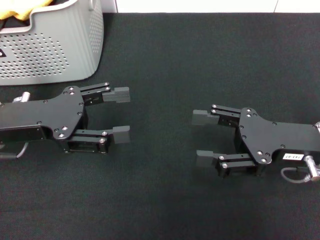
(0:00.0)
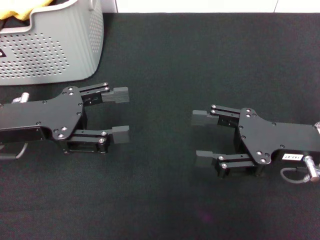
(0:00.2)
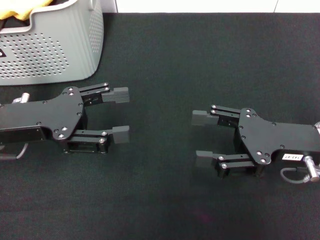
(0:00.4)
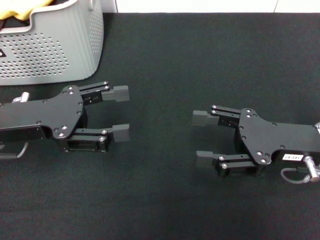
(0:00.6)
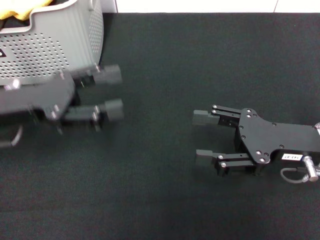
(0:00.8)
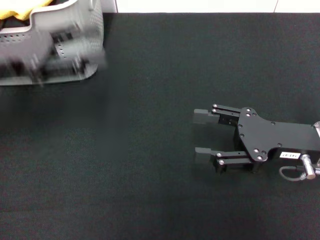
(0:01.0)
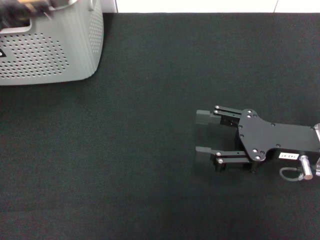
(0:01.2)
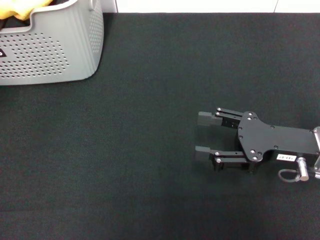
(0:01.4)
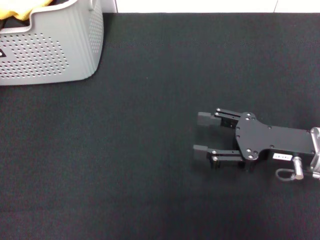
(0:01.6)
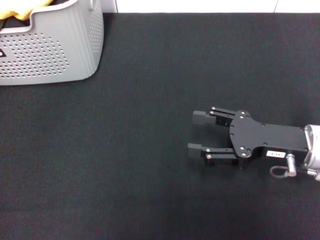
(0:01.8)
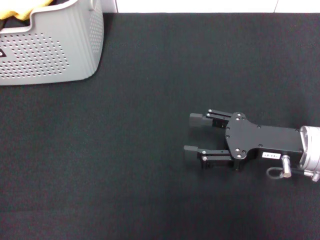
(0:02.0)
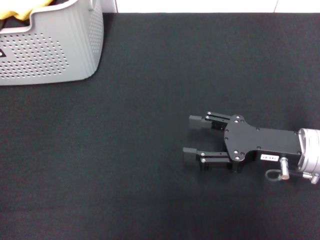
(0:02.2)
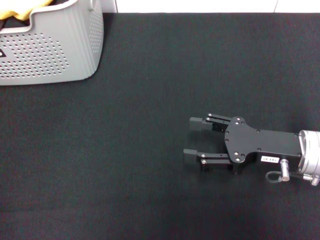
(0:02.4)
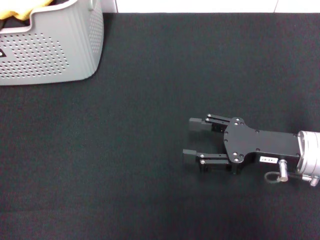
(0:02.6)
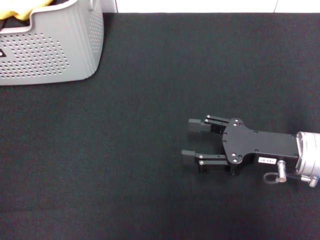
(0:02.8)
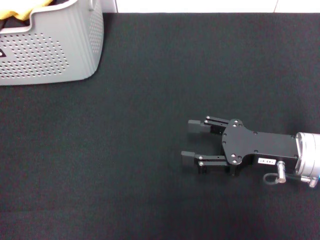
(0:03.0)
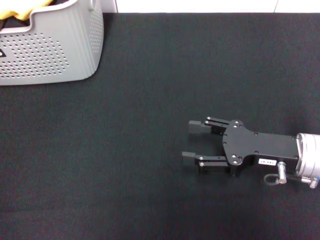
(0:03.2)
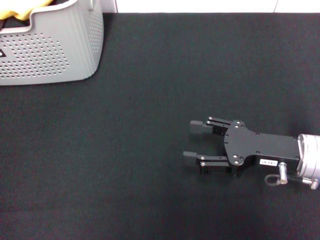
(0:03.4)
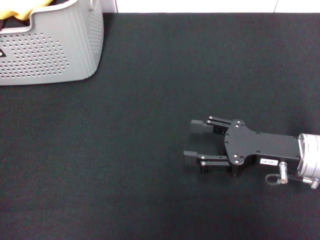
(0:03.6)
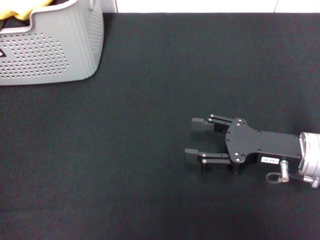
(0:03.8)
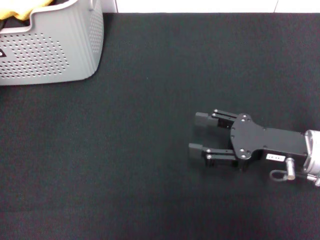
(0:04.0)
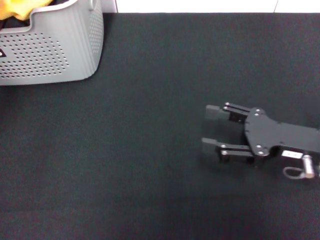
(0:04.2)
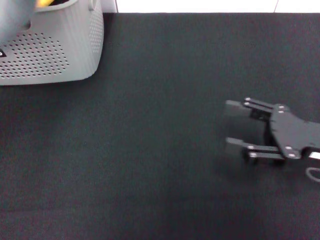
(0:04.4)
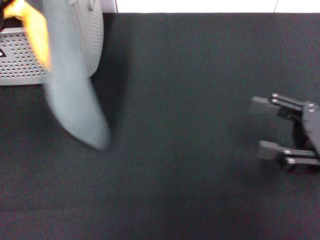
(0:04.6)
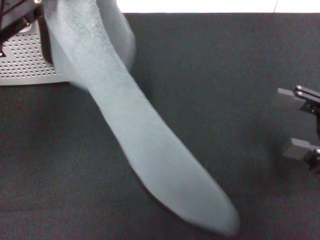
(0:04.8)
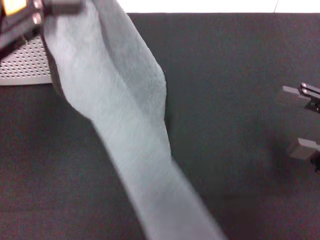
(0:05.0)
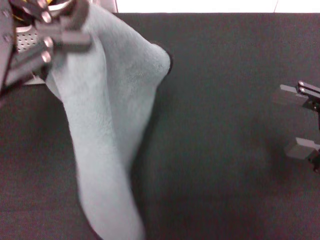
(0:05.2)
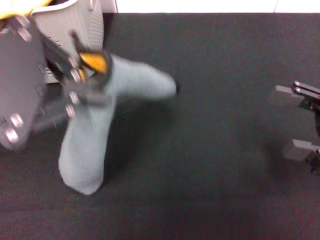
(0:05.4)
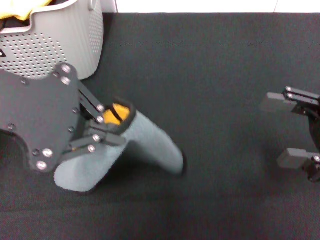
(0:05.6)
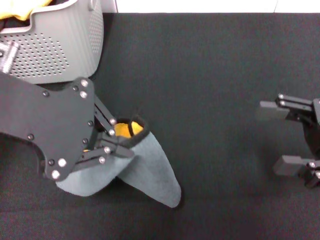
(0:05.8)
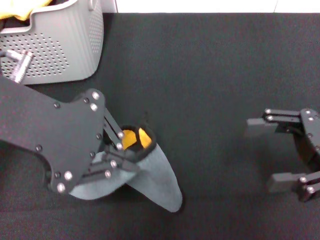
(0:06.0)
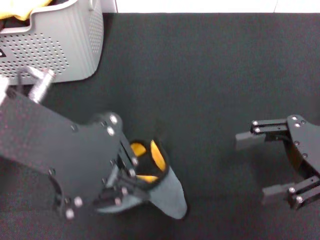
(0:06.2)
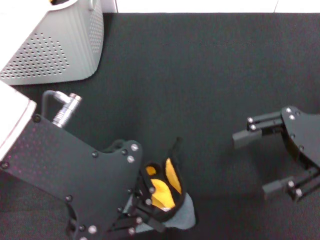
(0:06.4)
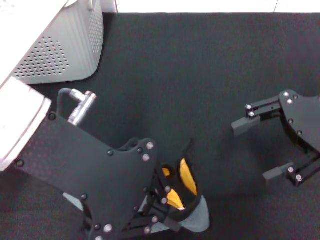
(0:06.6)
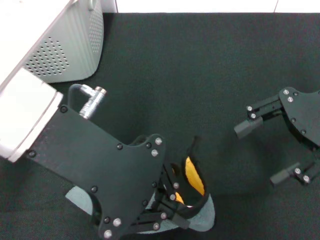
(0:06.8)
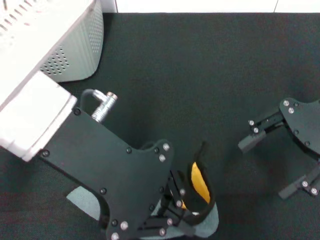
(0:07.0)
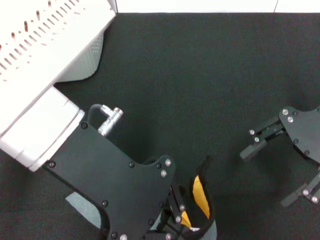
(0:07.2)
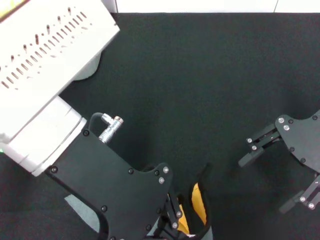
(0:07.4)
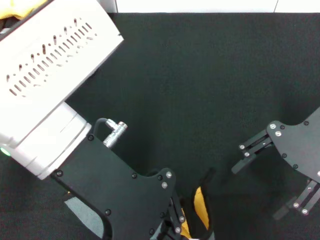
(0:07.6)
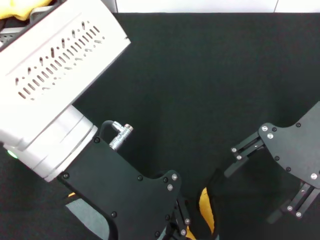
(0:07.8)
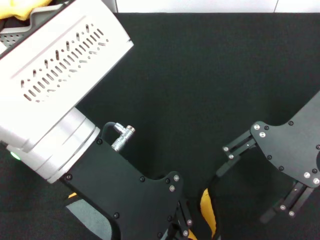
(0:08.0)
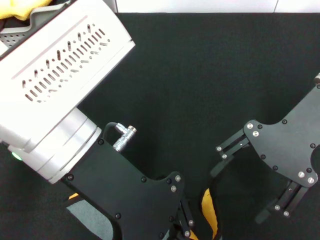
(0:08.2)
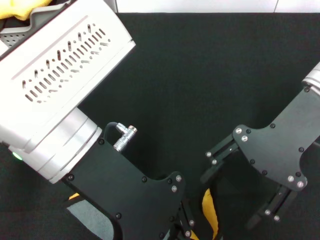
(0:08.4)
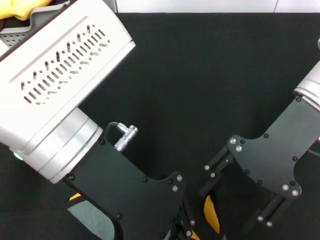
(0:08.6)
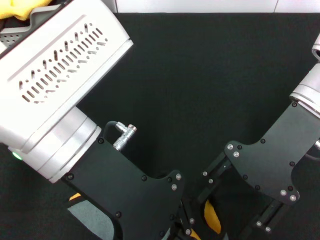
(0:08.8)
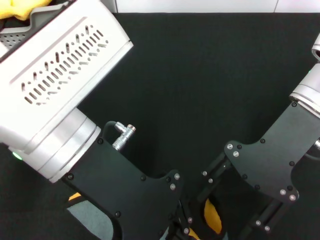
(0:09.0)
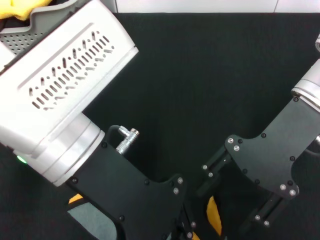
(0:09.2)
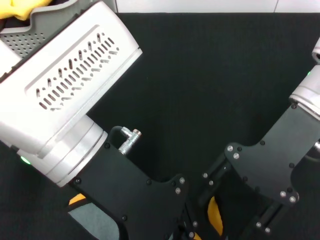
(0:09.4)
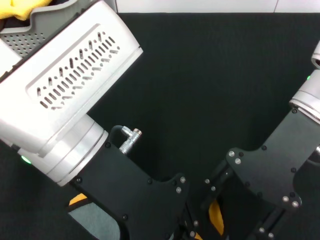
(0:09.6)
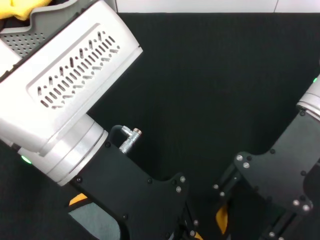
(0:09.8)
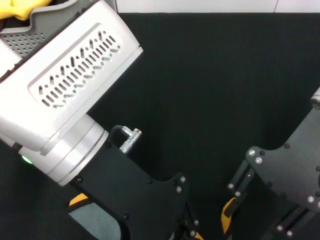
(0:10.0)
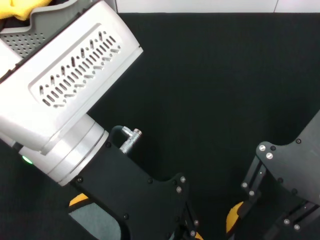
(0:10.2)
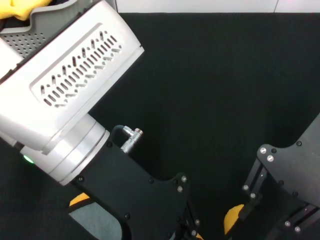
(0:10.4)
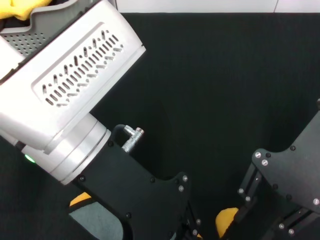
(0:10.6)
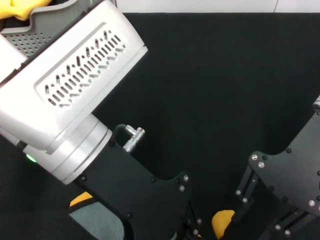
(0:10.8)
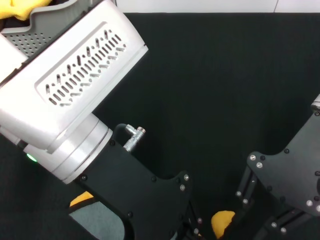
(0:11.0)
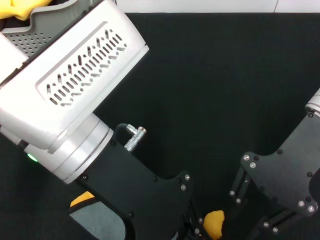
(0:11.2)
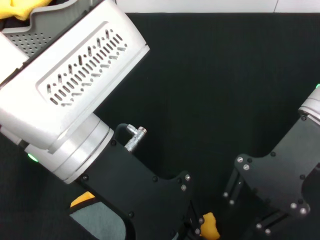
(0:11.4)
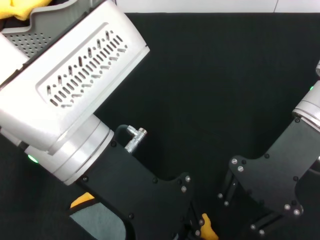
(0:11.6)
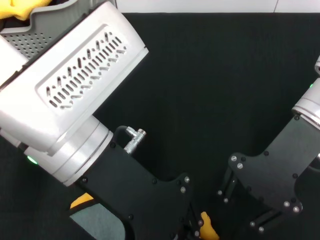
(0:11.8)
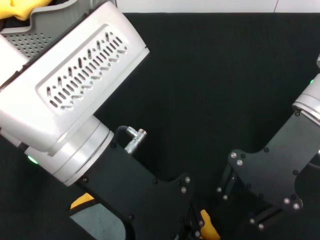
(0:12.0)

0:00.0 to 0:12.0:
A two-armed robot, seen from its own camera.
Task of the whole recording: pick up the towel from the storage box and lay it flat on the black tablecloth.
Step, 0:00.0 to 0:03.6: Pick up a towel with the left gripper.
0:00.0 to 0:01.6: The left gripper is displaced upward and to the left by about 20 cm.
0:01.6 to 0:03.0: The left gripper moves about 5 cm.
0:03.0 to 0:04.4: The left gripper moves to the right, upward and backward, some 15 cm, and closes. Meanwhile the right gripper ends up roughly 5 cm from where it was.
0:04.4 to 0:06.0: The left gripper shifts some 10 cm to the right.
0:06.0 to 0:07.6: The right gripper moves upward, forward and to the left, roughly 10 cm; the left gripper moves to the right and downward, some 10 cm.
0:07.6 to 0:09.0: The right gripper is displaced to the left by approximately 5 cm.
0:10.4 to 0:12.0: The grippers stay close to where they were, moving slightly.

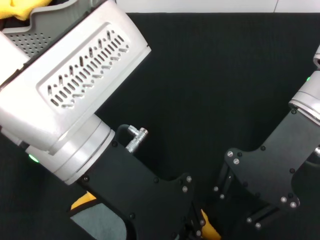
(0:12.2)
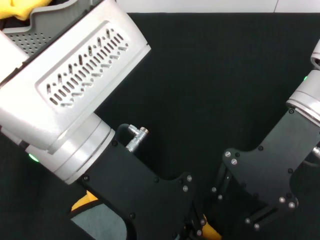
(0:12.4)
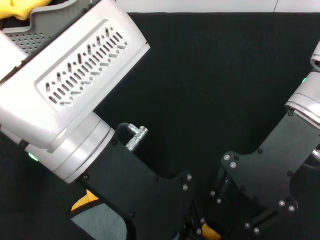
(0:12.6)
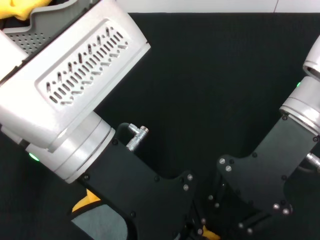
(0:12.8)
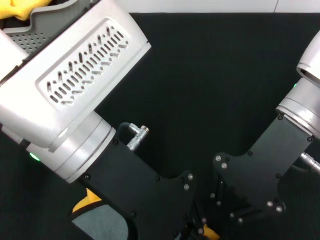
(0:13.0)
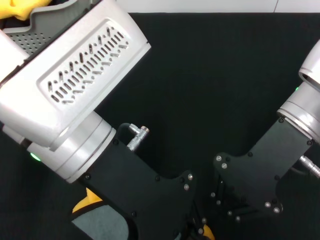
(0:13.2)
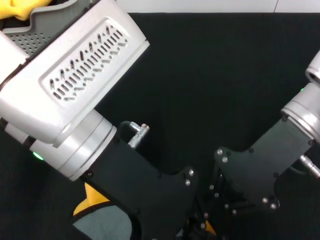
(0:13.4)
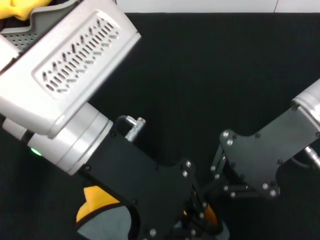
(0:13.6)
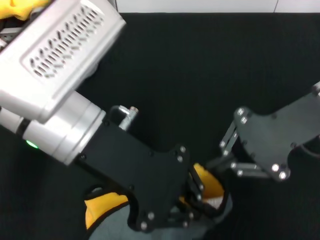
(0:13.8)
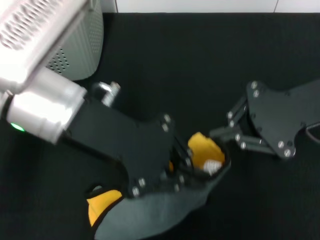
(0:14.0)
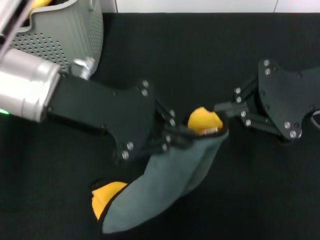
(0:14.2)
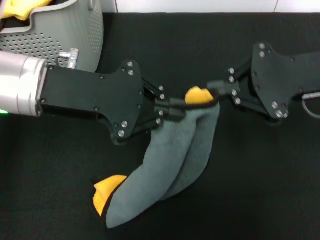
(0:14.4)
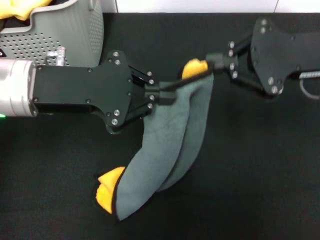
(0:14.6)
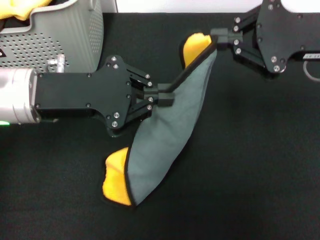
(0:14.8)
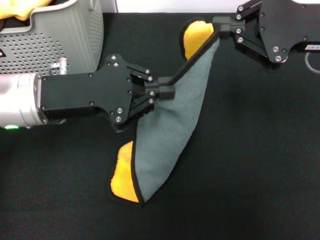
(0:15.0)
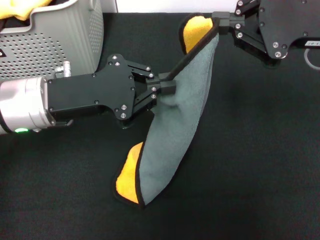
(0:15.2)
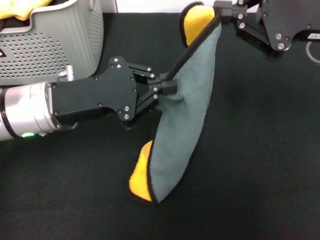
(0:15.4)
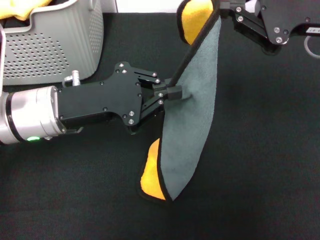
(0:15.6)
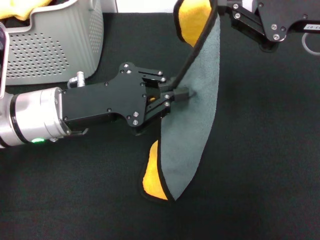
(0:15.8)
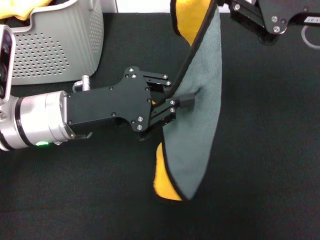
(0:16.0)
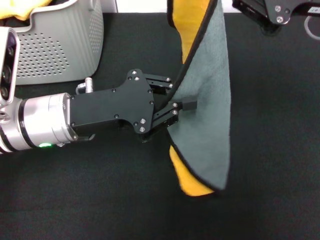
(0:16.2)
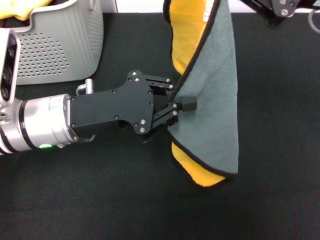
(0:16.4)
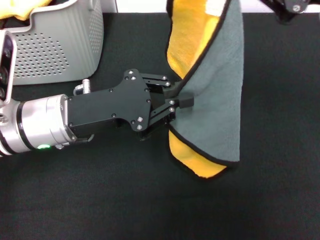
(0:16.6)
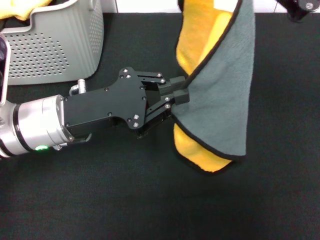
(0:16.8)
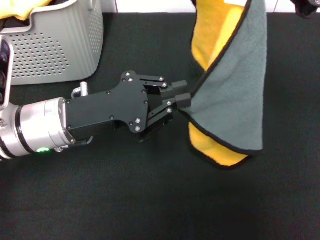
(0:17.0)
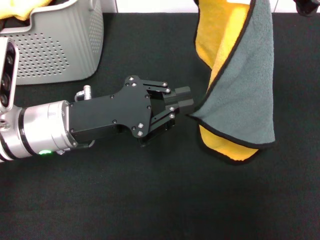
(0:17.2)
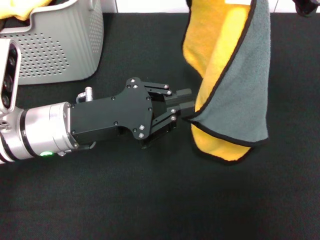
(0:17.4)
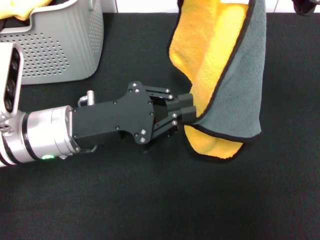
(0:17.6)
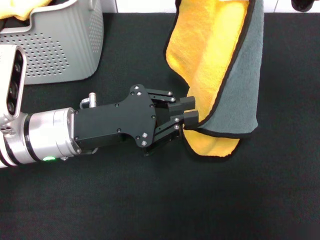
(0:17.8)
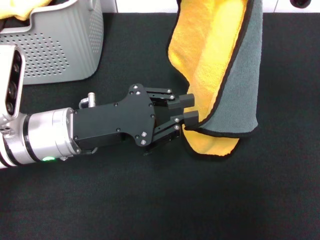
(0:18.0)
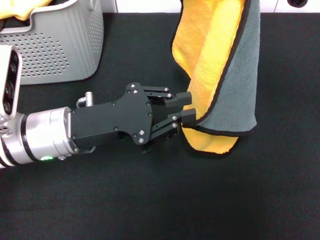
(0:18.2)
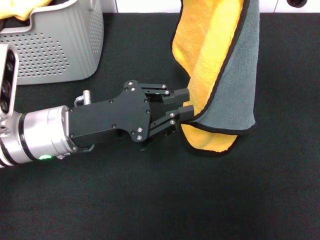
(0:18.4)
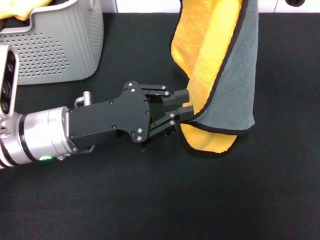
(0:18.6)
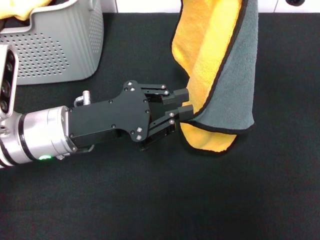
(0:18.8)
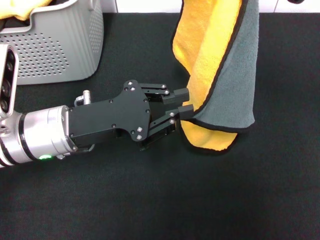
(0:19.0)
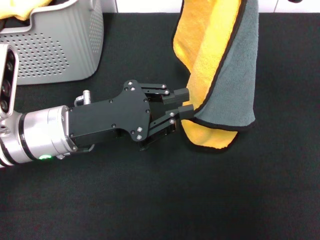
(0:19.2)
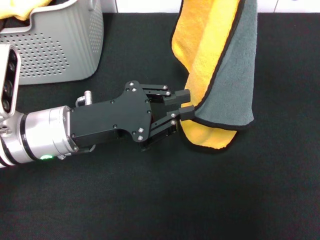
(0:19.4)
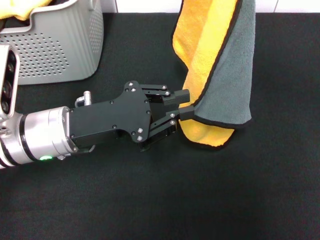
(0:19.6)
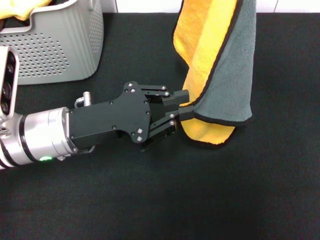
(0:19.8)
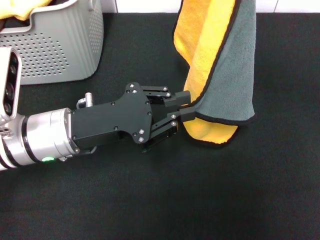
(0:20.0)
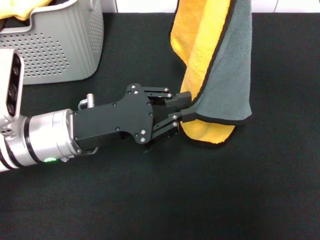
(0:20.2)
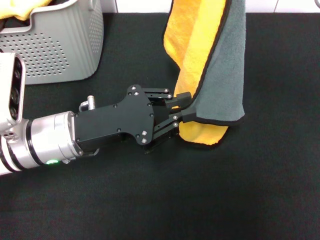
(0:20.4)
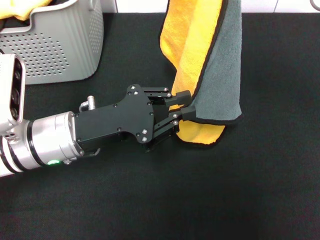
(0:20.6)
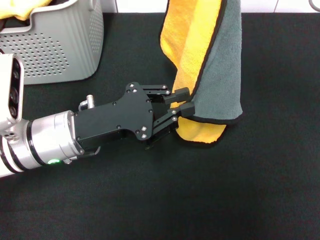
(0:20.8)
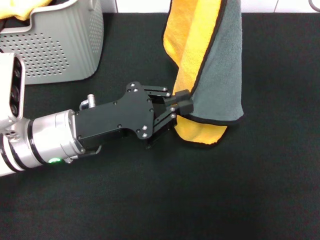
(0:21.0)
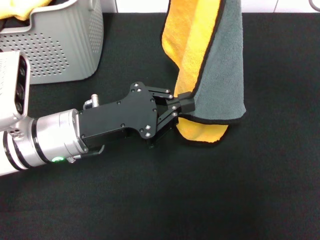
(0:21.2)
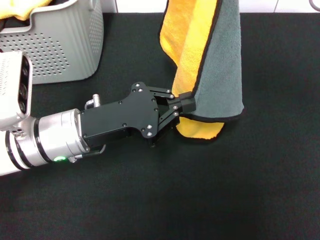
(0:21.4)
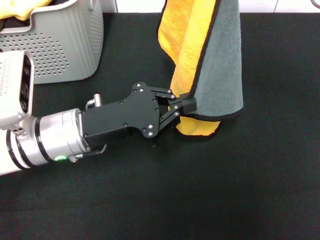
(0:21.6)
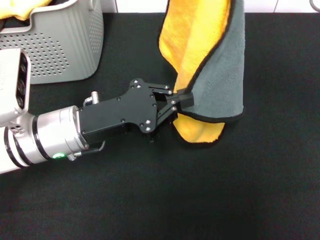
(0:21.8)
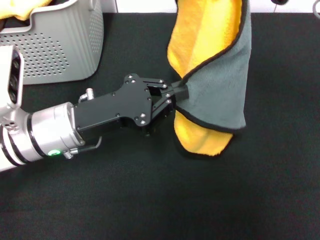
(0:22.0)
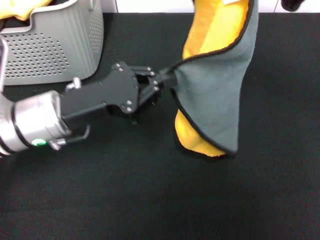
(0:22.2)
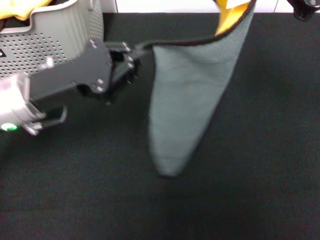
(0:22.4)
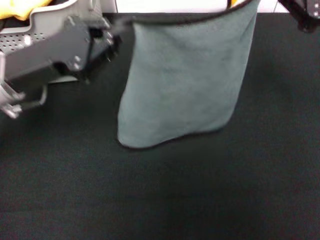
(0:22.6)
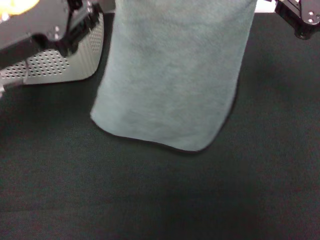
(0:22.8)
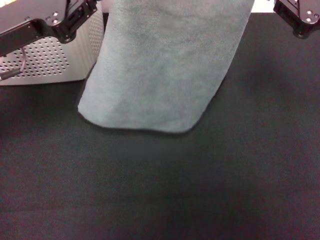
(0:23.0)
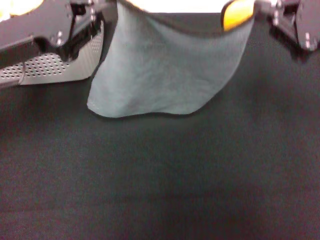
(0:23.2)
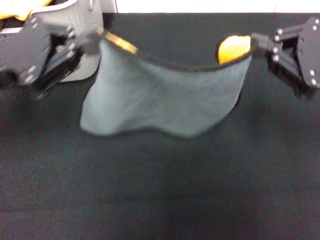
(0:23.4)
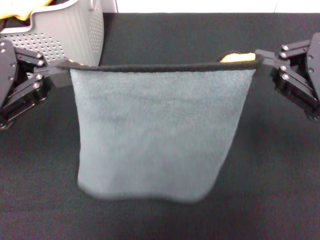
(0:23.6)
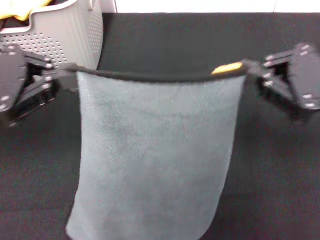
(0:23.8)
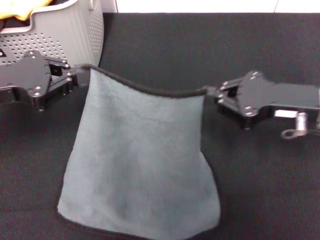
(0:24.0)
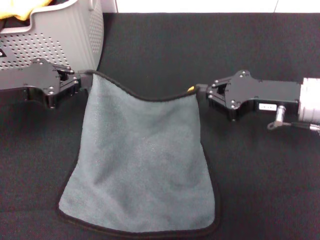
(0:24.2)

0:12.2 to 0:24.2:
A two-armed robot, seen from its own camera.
Task of the whole recording: pick up the towel from the storage box and lay it flat on the black tablecloth.
0:13.8 to 0:15.2: The right gripper changes place by some 5 cm. Meanwhile the left gripper is displaced downward and to the left by some 10 cm.
0:18.2 to 0:19.8: Neither gripper changes place.
0:19.8 to 0:21.2: The grippers make only small movements.
0:21.2 to 0:22.6: The left gripper travels upward and to the left by roughly 10 cm, while the right gripper changes place by some 5 cm.
0:22.6 to 0:24.2: The left gripper goes about 5 cm to the left; the right gripper heads downward and to the left, covering some 10 cm.
